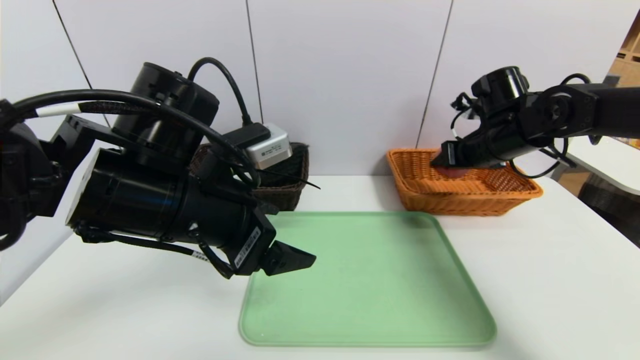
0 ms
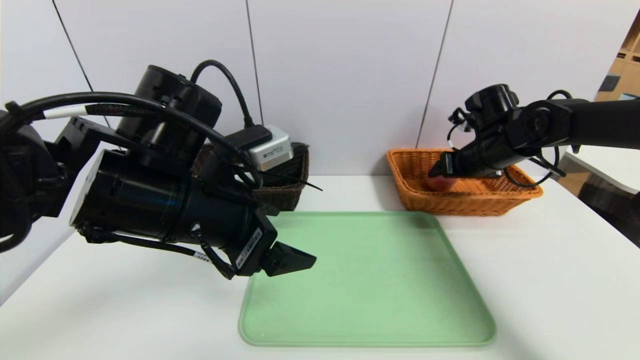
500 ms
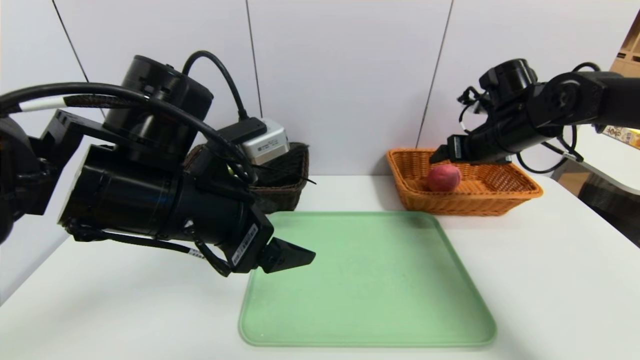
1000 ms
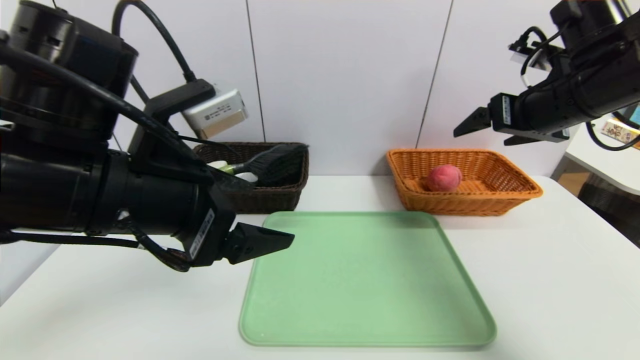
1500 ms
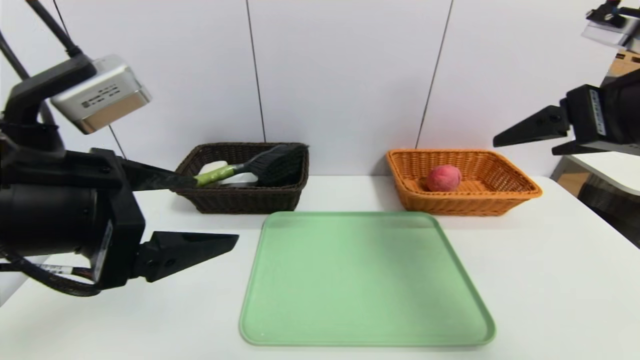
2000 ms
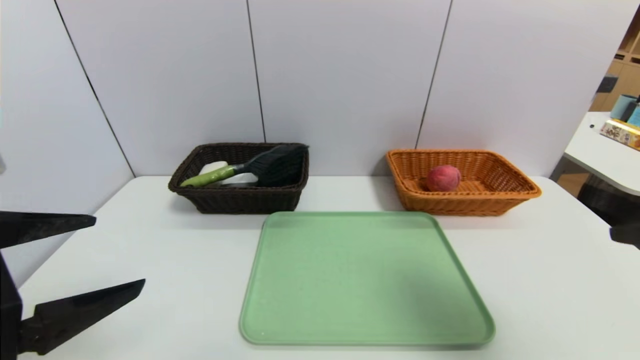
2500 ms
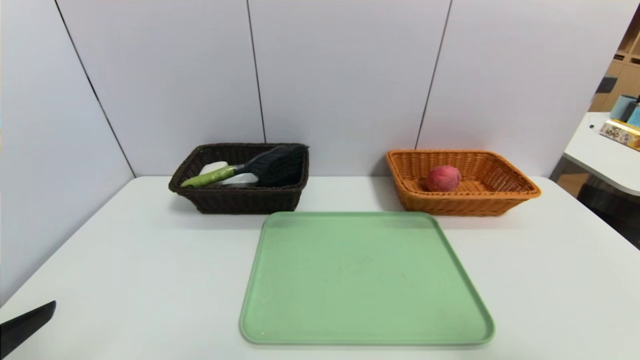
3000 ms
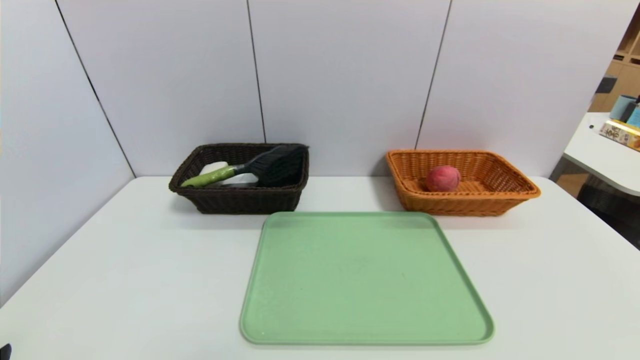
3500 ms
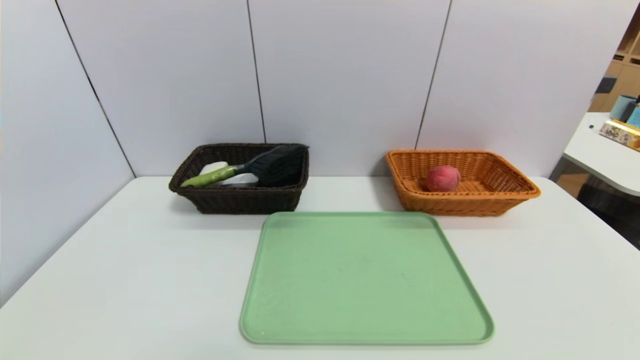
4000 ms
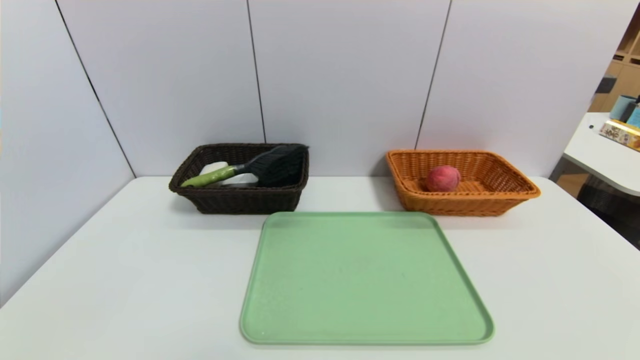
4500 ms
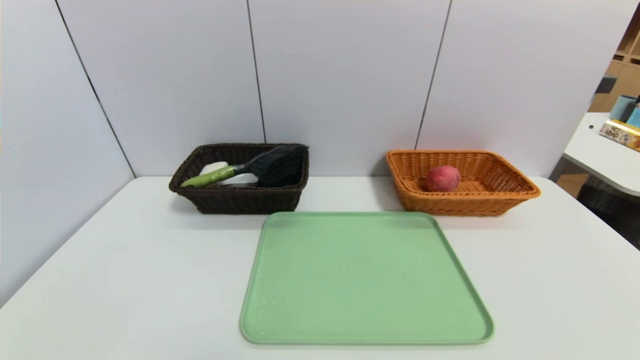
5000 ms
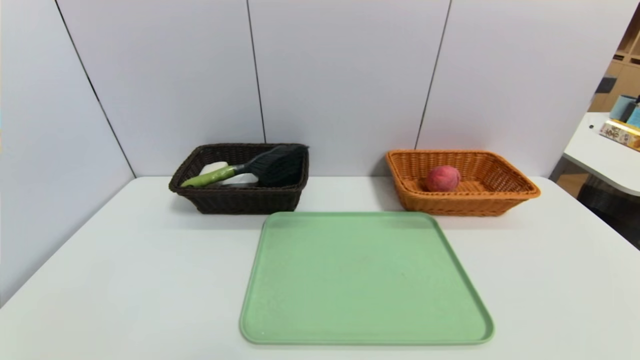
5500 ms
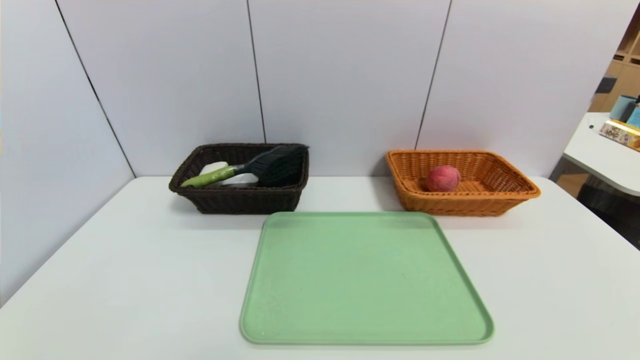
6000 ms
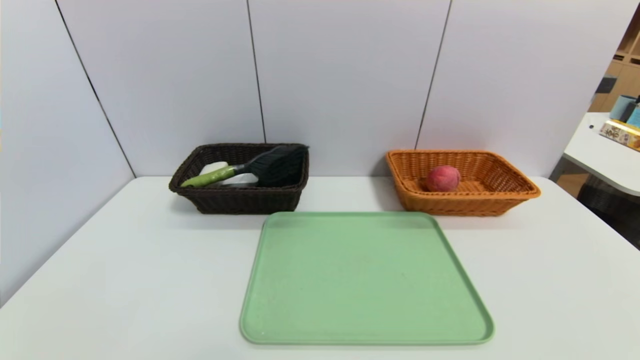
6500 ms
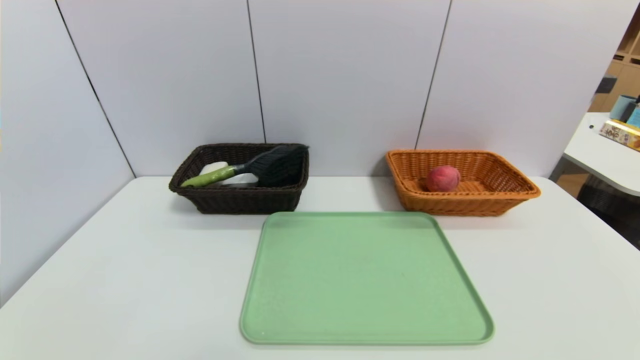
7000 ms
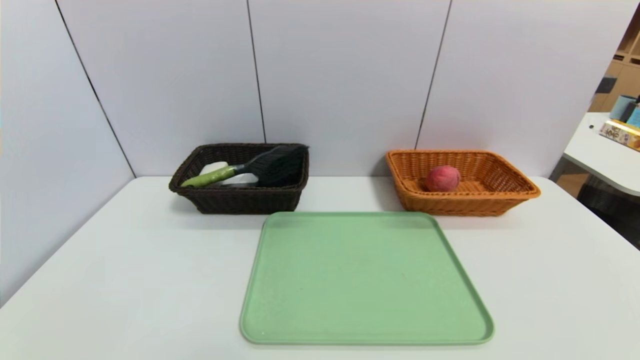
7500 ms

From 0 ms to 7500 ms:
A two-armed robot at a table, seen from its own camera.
Task of the whole recording: place the food in the right basket with the right gripper, and place the non food items in the left basket with the left gripper.
From 0 ms to 2000 ms: The left gripper is displaced backward and to the left by some 10 cm; the right gripper heads backward and upward, covering roughly 25 cm, and opens its fingers.
From 2000 ms to 4000 ms: The left gripper moves backward, downward and to the left, roughly 25 cm, while the right gripper moves backward, roughly 30 cm.
